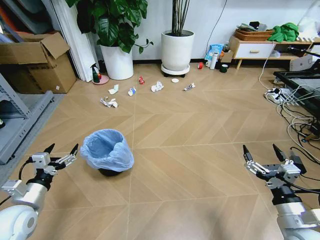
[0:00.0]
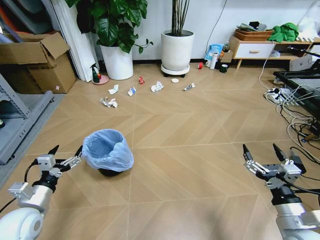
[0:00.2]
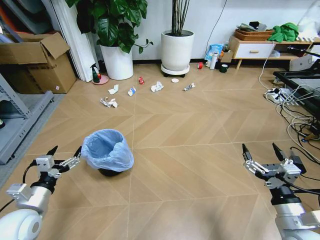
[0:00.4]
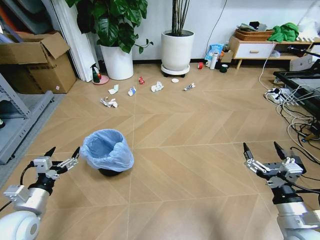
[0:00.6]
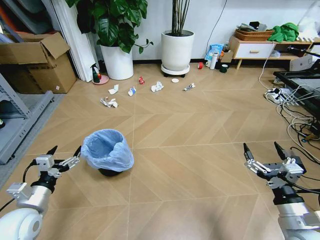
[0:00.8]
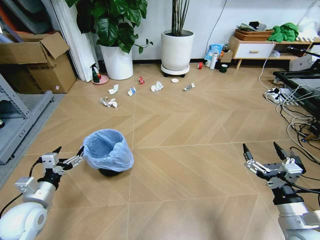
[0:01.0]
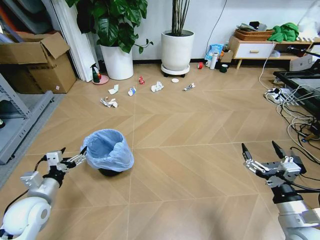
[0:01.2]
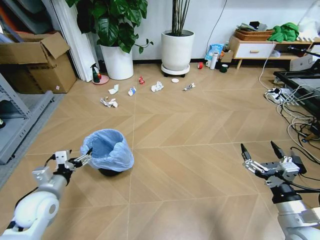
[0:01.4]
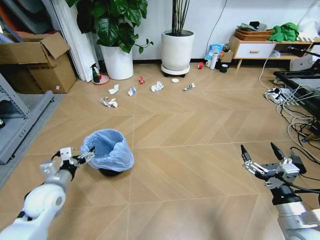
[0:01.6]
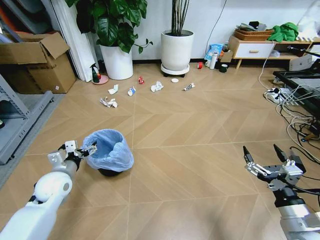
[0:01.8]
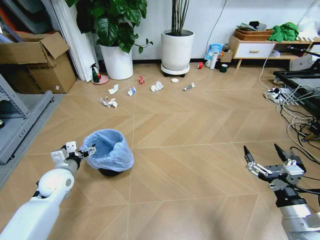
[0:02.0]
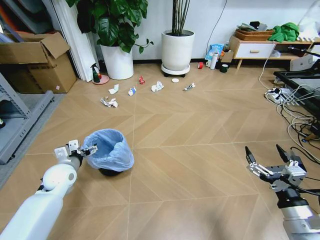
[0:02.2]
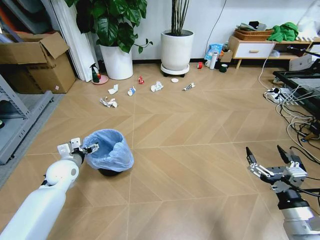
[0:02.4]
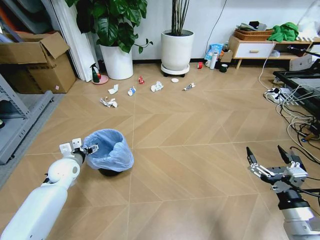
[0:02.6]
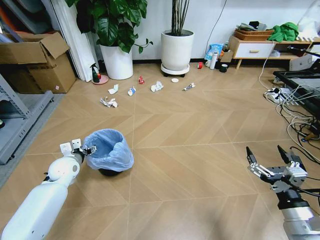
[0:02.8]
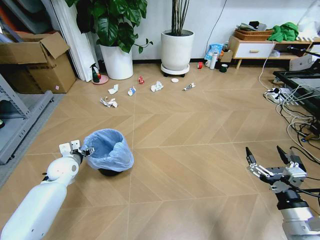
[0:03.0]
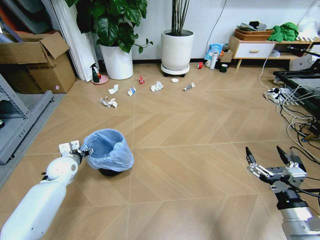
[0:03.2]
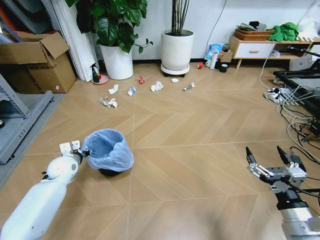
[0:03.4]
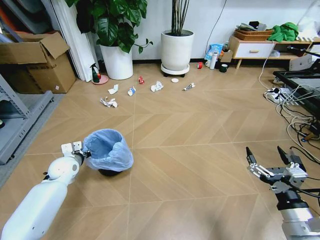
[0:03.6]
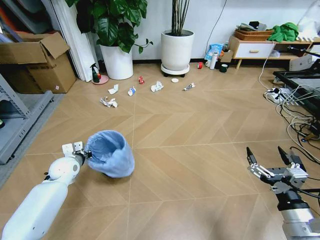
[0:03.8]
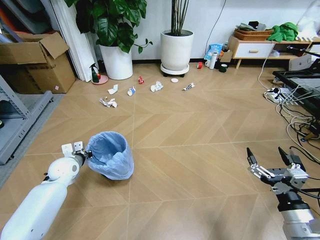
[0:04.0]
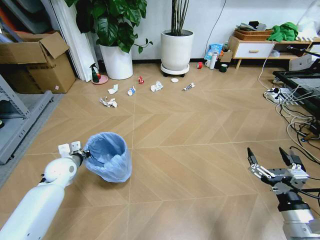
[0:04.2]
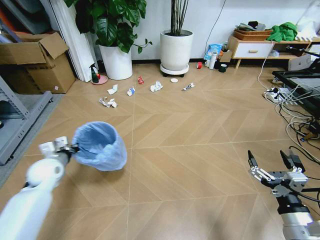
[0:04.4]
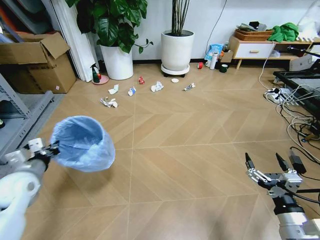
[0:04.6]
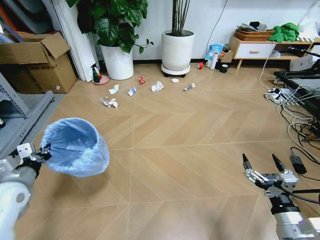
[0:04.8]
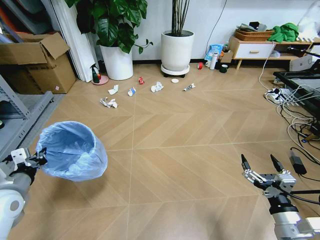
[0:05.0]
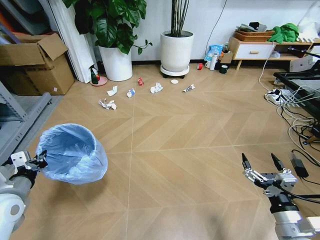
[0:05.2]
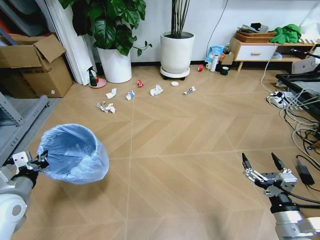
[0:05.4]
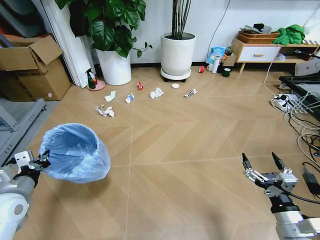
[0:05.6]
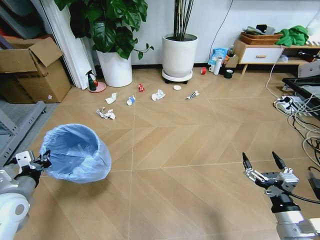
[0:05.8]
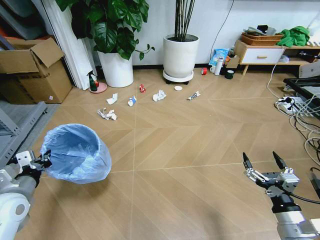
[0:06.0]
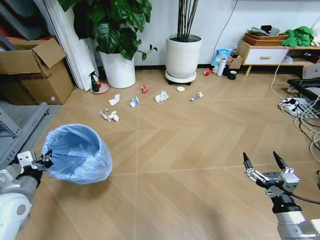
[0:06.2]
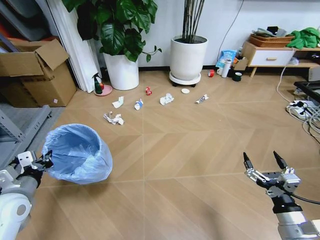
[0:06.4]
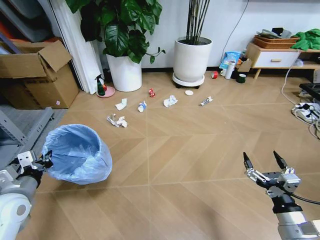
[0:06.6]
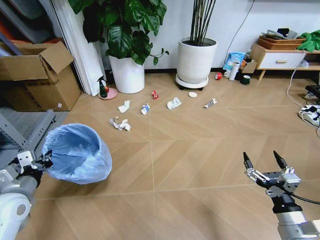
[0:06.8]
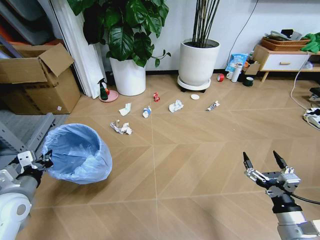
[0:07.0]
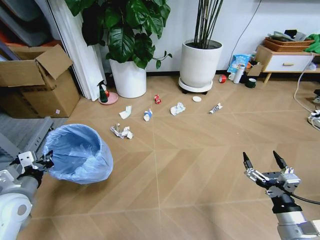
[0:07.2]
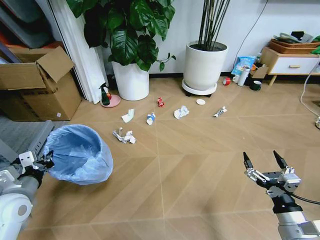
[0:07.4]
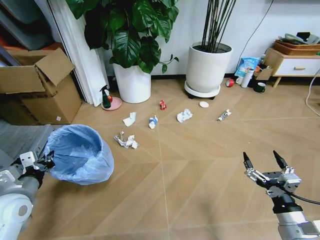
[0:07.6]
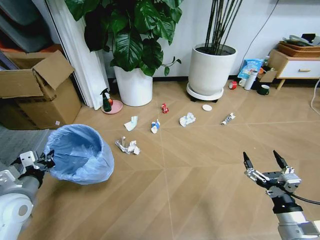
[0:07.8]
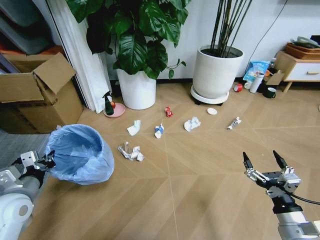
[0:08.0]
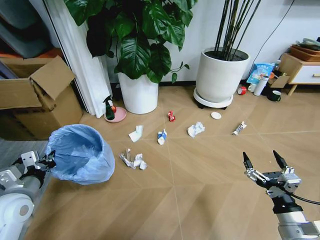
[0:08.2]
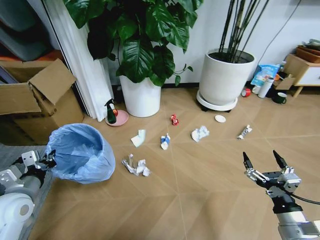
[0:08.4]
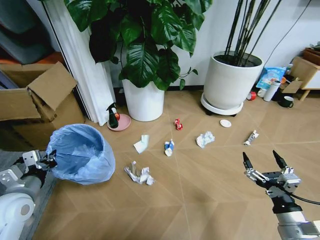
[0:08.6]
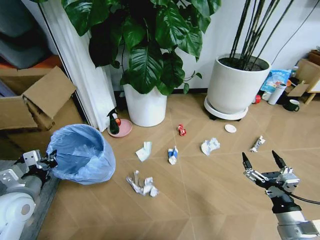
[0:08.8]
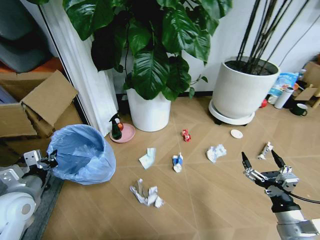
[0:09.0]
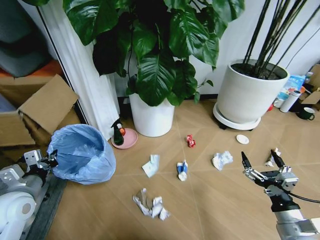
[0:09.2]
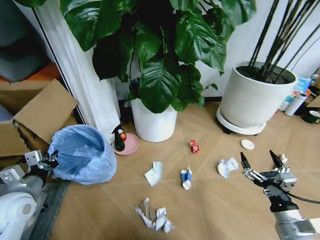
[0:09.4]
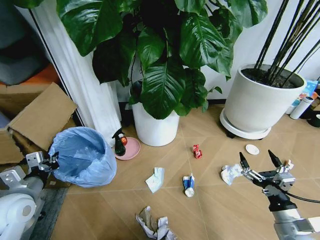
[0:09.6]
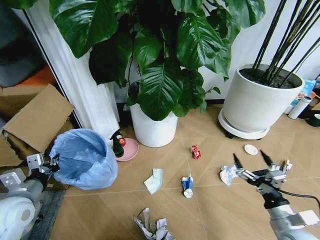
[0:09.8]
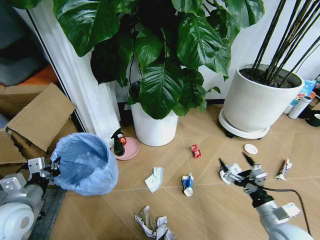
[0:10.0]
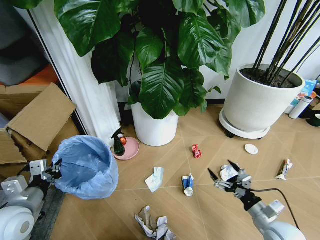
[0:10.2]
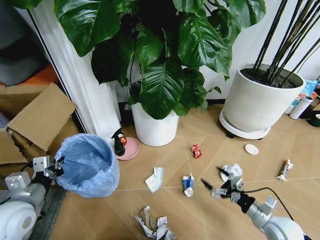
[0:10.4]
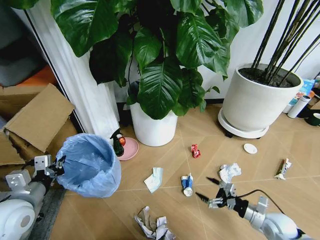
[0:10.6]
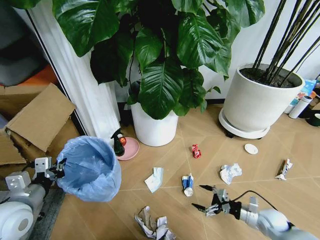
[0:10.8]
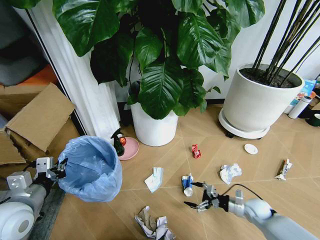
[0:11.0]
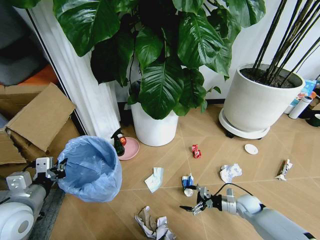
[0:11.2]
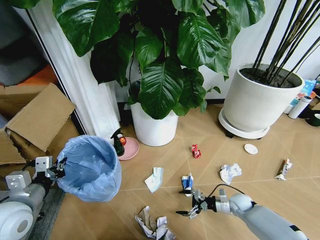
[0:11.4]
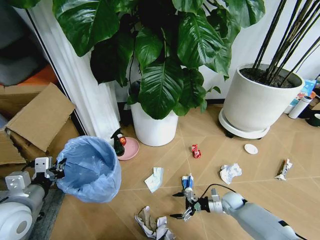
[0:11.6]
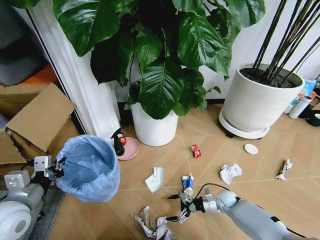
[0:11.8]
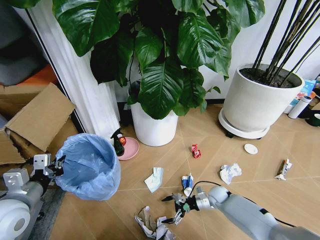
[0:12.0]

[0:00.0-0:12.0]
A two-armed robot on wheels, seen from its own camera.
Task of the whole recording: Pick up the trash bin and place the garbage on the floor into it.
0:01.6 to 0:03.0: The left gripper moves forward, approximately 15 cm.
0:03.0 to 0:04.4: The left gripper heads upward, covering about 5 cm, and closes up.
0:04.4 to 0:06.0: The left gripper is displaced backward by approximately 15 cm.
0:09.0 to 0:10.4: The right gripper moves downward and forward, roughly 10 cm.
0:10.4 to 0:12.0: The right gripper shifts roughly 25 cm forward, downward and to the left.

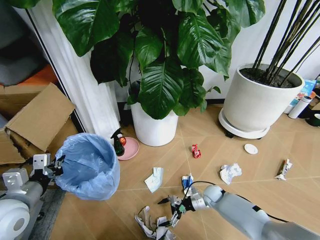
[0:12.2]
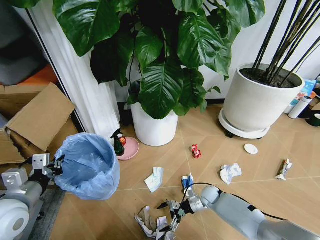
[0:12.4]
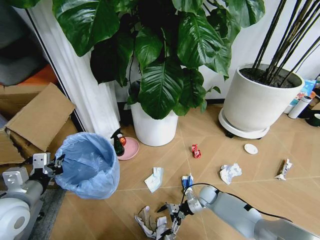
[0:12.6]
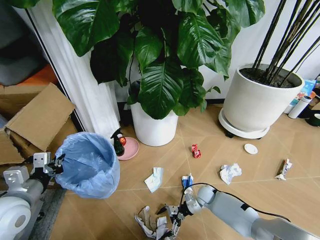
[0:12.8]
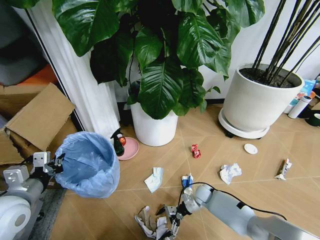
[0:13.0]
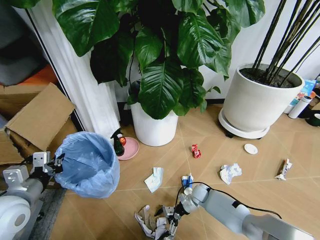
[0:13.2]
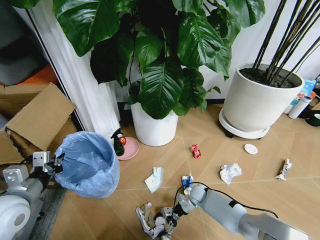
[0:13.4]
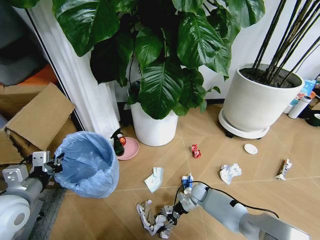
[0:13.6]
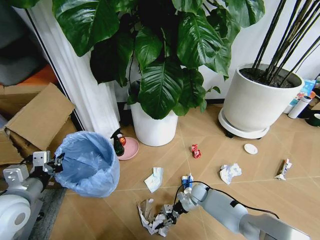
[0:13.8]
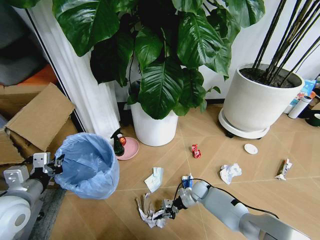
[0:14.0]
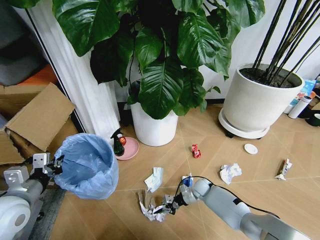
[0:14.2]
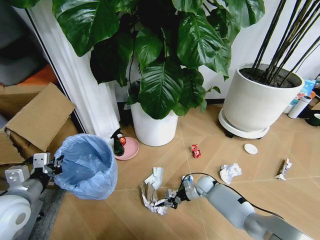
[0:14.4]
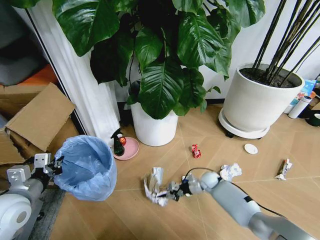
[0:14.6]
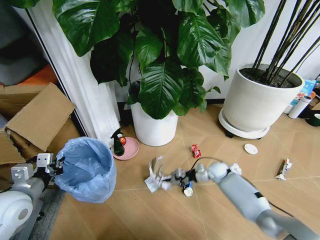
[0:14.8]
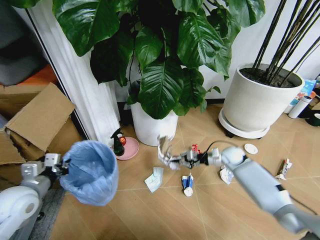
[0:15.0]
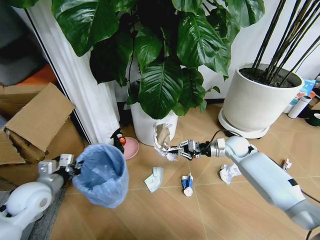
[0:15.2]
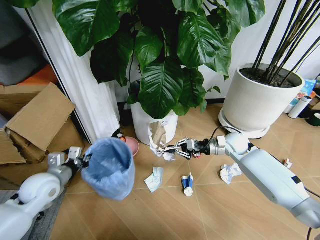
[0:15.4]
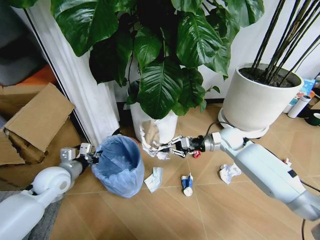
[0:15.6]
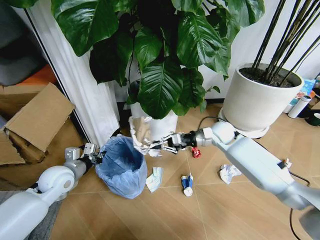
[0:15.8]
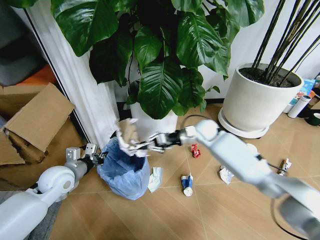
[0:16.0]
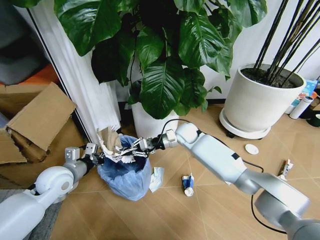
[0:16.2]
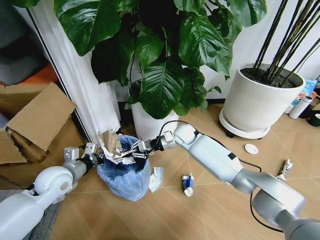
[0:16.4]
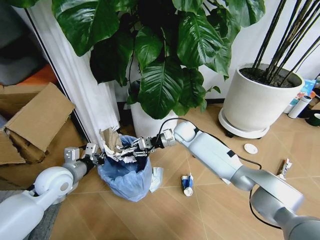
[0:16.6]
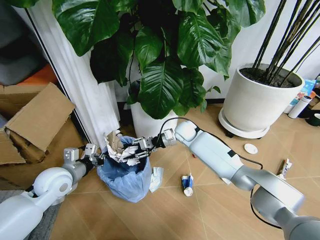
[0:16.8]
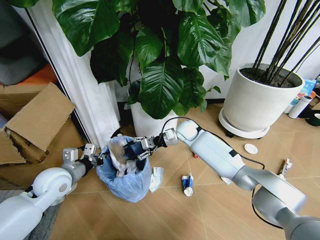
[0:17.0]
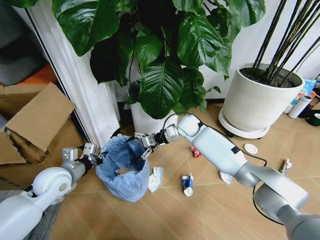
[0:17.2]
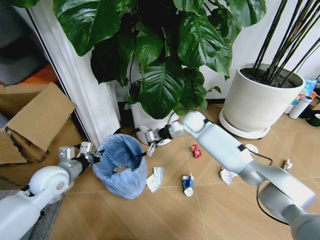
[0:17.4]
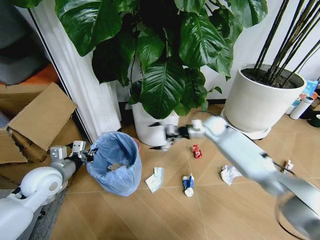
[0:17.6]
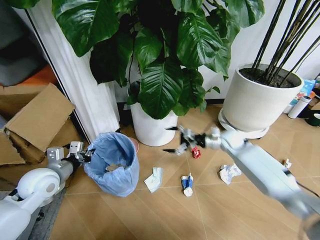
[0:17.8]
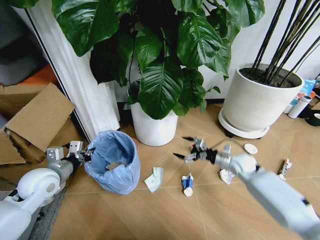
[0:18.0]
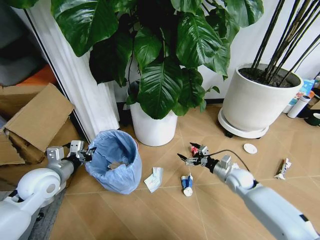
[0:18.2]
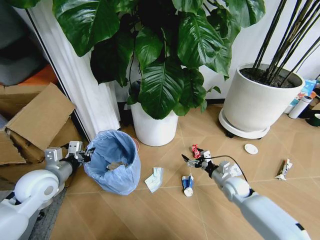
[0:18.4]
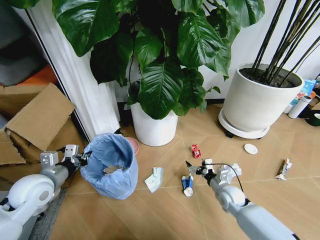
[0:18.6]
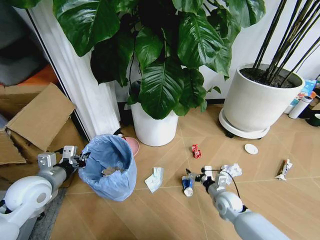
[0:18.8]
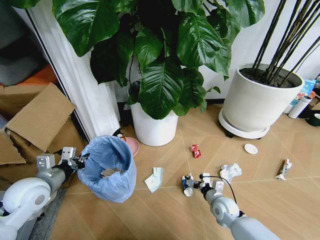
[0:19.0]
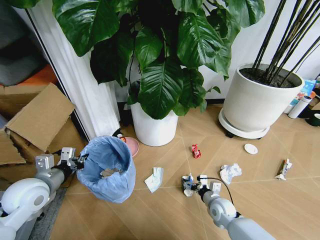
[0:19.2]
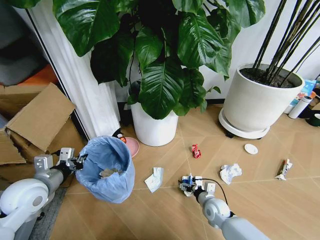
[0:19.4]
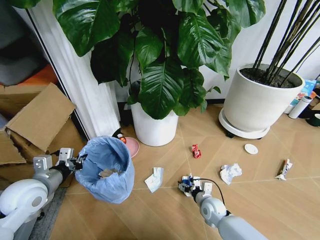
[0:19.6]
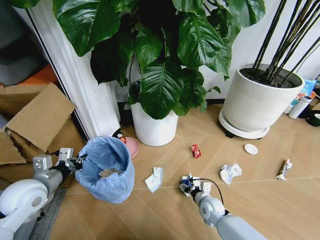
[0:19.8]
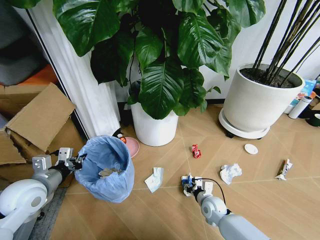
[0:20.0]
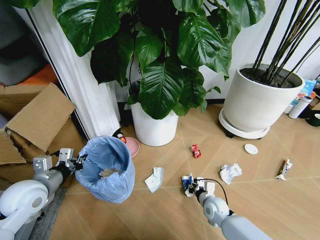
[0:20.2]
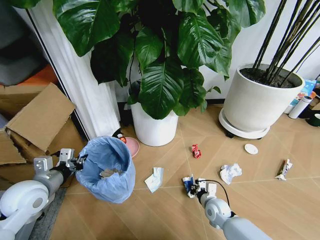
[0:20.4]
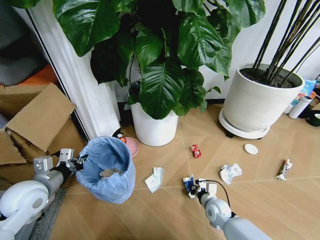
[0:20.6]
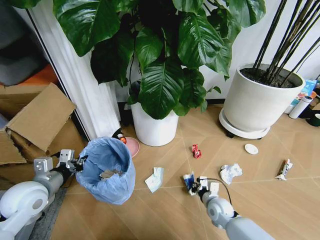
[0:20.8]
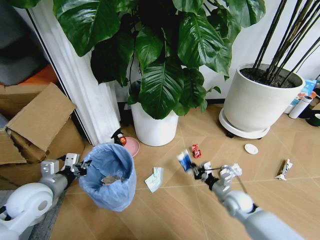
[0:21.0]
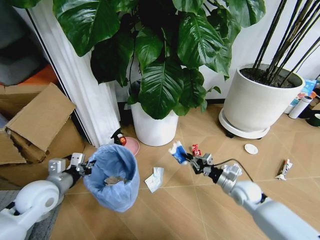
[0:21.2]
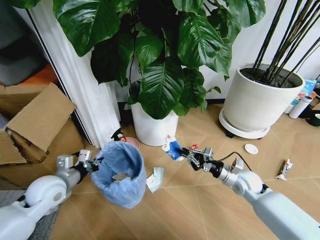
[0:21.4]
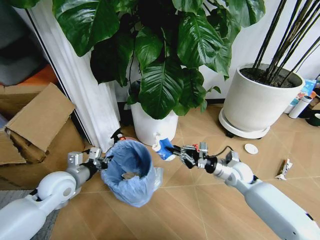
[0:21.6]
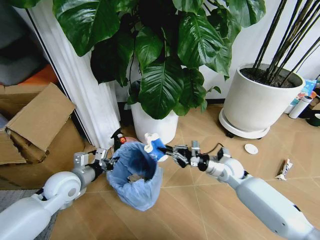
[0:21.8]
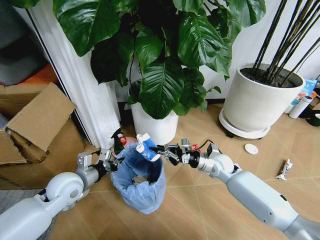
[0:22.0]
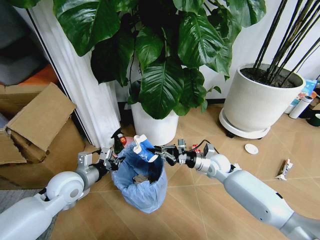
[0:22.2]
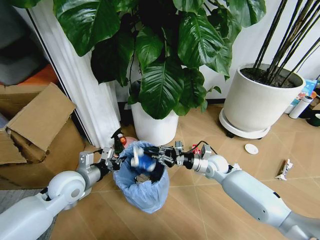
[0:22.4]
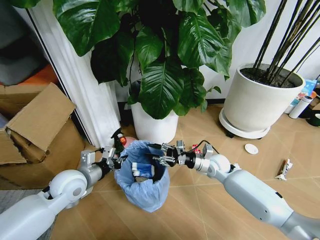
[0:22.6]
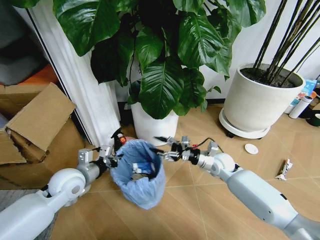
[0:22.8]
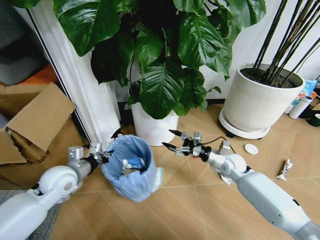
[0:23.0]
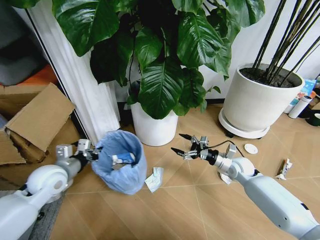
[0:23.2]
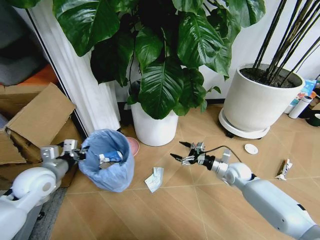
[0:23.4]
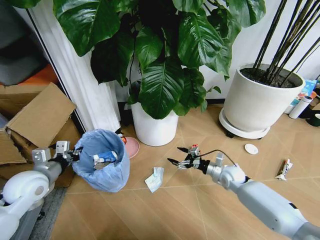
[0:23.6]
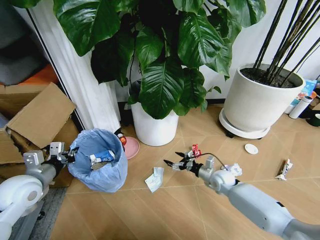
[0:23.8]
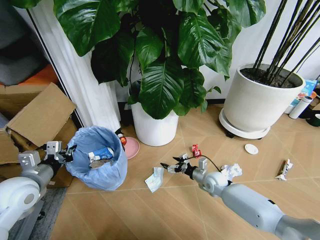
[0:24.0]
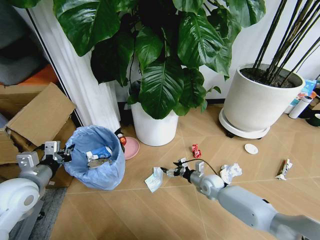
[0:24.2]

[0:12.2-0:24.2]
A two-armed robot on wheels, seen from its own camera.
Task of the whole recording: Pick up the trash bin and place the garbage on the floor into it.
0:12.2 to 0:13.8: The right gripper shifts by roughly 5 cm, and closes.
0:13.8 to 0:15.2: The left gripper travels forward and downward by approximately 5 cm. The right gripper travels upward and to the right by about 25 cm.
0:15.2 to 0:16.6: The right gripper is displaced to the left by some 20 cm; the left gripper moves to the right, some 5 cm.
0:16.6 to 0:18.2: The right gripper moves to the right, backward and downward, roughly 30 cm, and opens.
0:18.2 to 0:19.8: The right gripper goes some 15 cm to the left, downward and backward.
0:19.8 to 0:21.2: The right gripper heads to the right and upward, covering some 15 cm, and closes.
0:21.2 to 0:22.6: The left gripper heads to the right, covering approximately 5 cm; the right gripper is displaced forward and to the left by some 15 cm, and opens up.
0:22.6 to 0:24.2: The right gripper goes approximately 15 cm downward, and opens its fingers. Meanwhile the left gripper shifts some 10 cm to the left.
